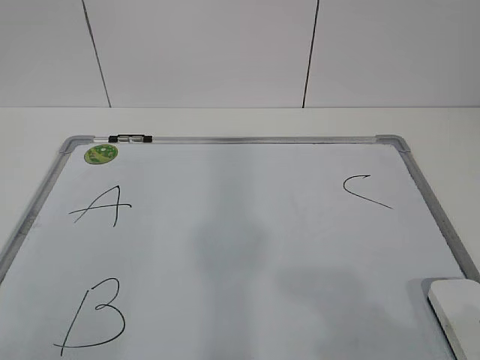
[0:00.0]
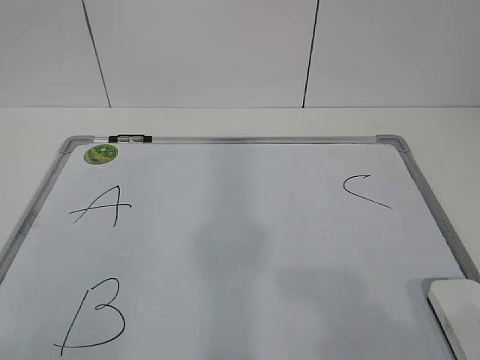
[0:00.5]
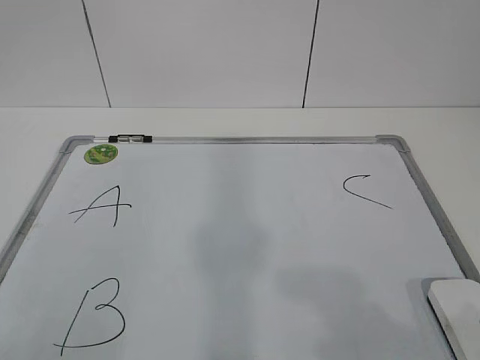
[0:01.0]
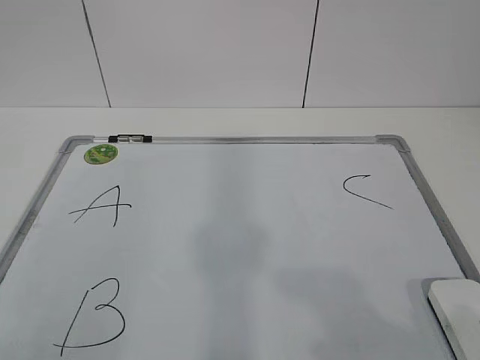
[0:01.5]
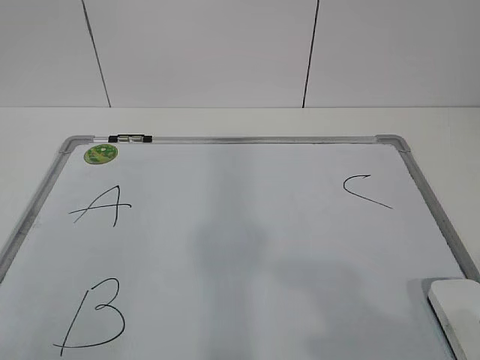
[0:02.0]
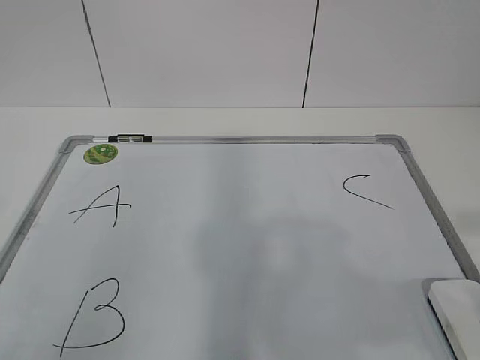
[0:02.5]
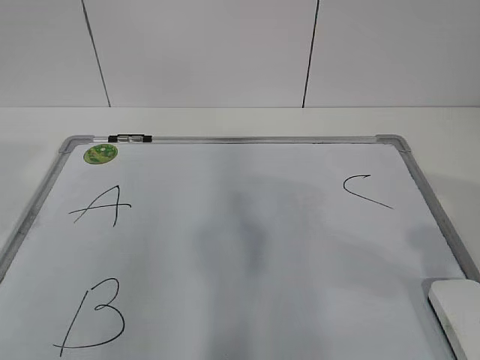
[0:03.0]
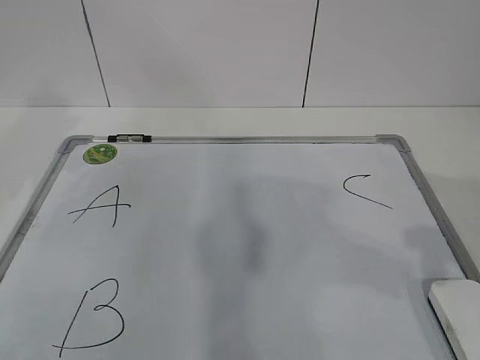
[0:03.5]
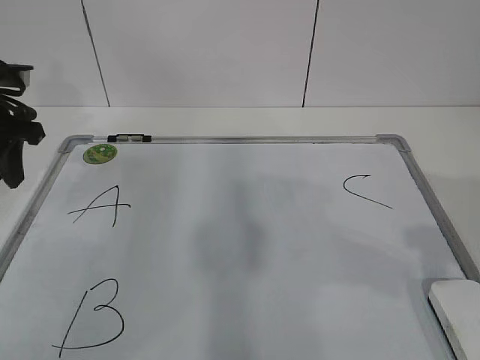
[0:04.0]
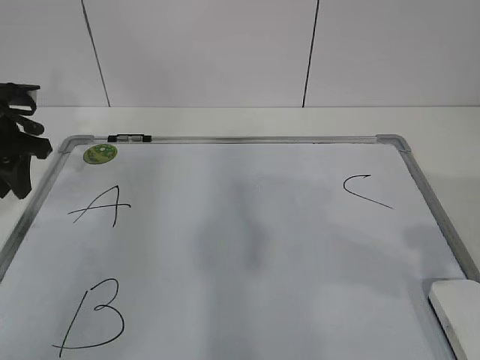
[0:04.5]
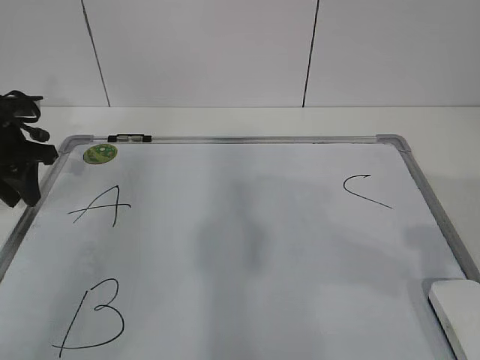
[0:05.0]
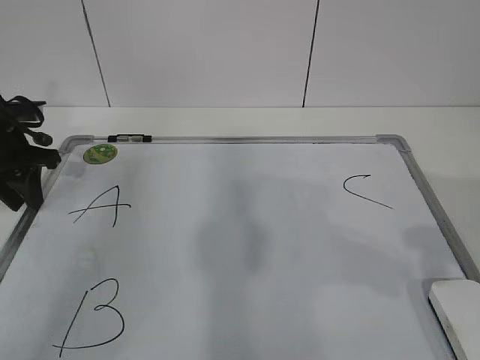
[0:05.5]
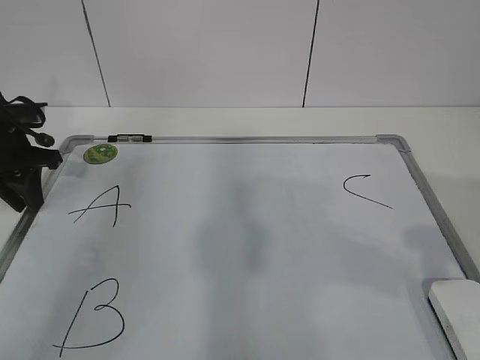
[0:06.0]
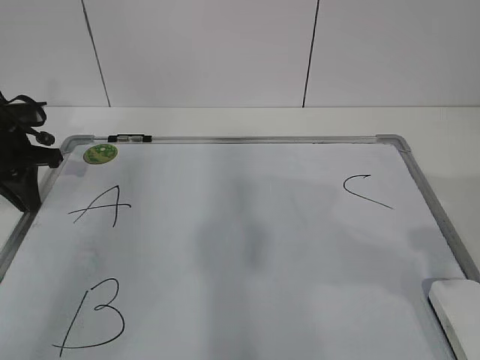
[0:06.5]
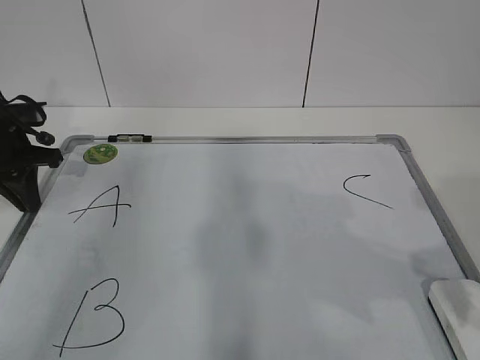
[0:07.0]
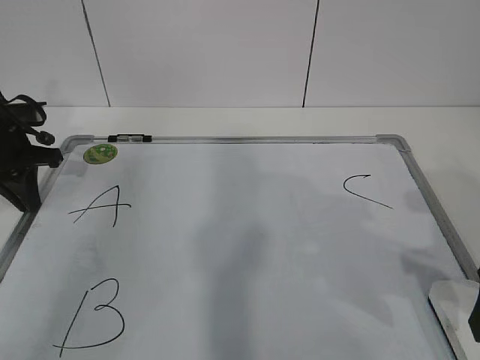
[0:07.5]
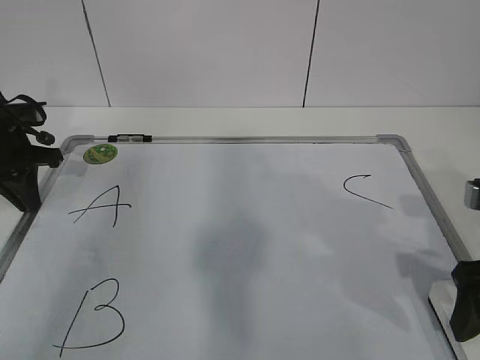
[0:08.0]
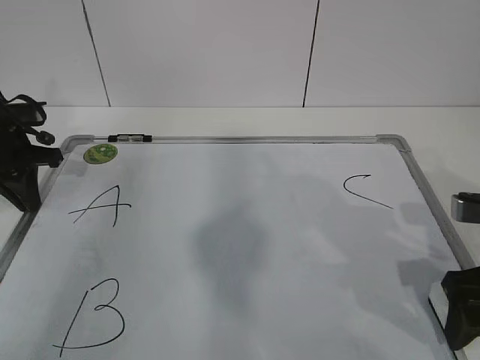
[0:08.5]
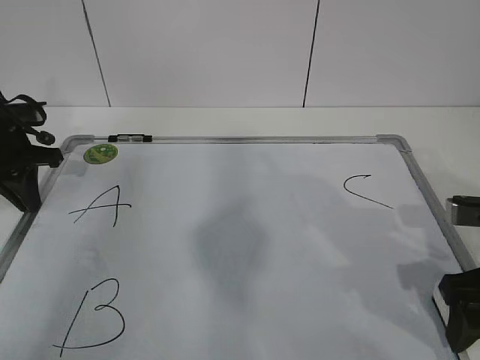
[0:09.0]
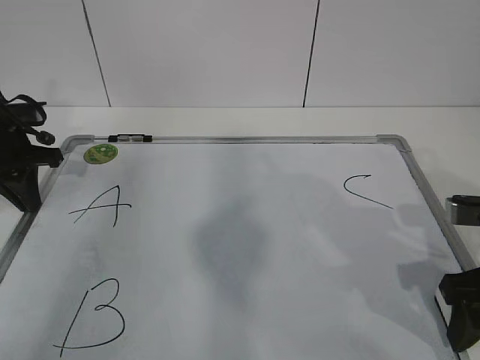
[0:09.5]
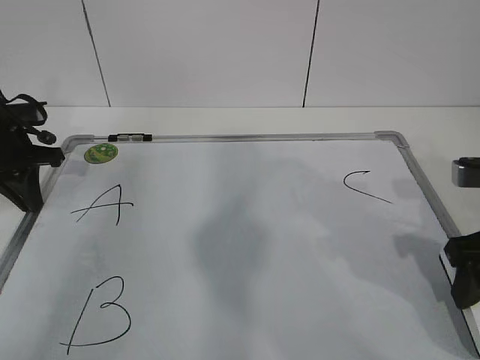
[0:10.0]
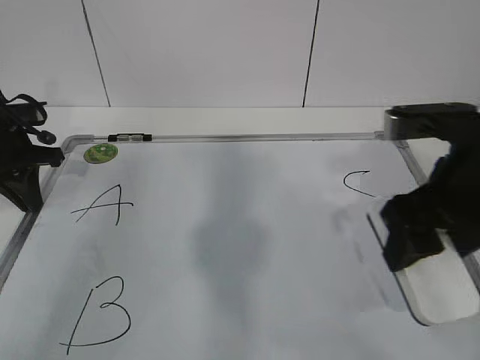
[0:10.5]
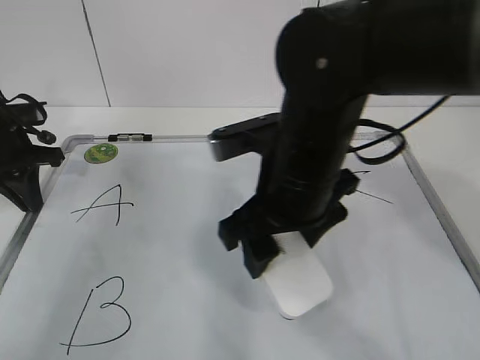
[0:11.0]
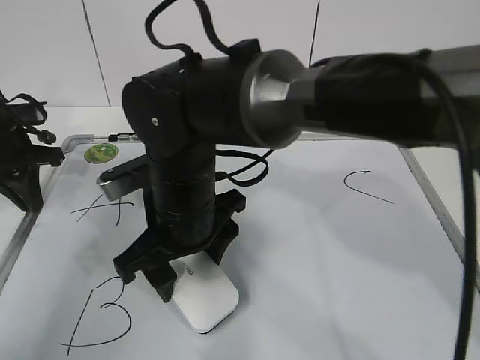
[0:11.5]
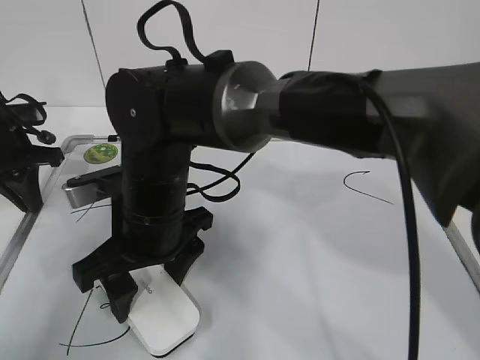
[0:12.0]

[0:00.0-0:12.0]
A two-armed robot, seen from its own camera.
Task of the whole recording: pick up the eraser on the blackboard and erase the letter "B".
Step, 0:00.0 to 0:05.0: Hold the drawing board steady with your left hand.
0:02.0 to 0:04.0: The left gripper goes approximately 40 cm forward. Meanwhile the right gripper moves forward, approximately 15 cm.
0:04.0 to 0:06.0: The left gripper travels downward by approximately 5 cm.
0:06.0 to 0:08.0: The right gripper is displaced downward and forward by approximately 10 cm, and opens its fingers.
0:08.0 to 0:10.0: The right gripper closes.
0:10.0 to 0:12.0: The right gripper travels to the left by approximately 35 cm.

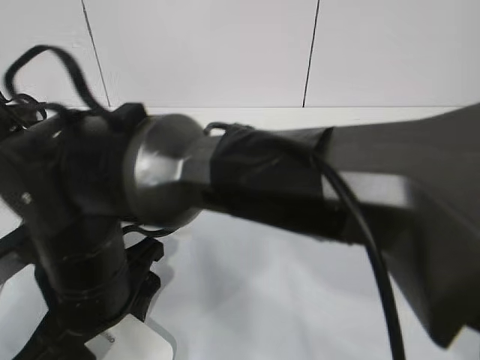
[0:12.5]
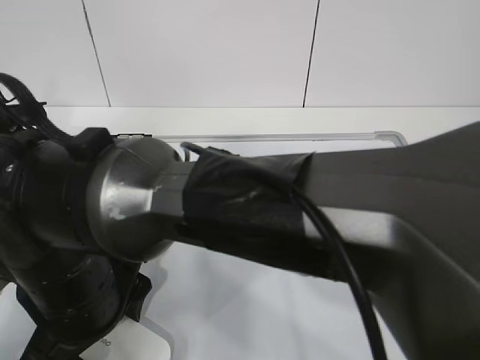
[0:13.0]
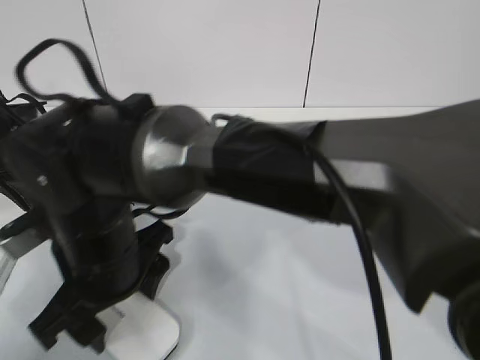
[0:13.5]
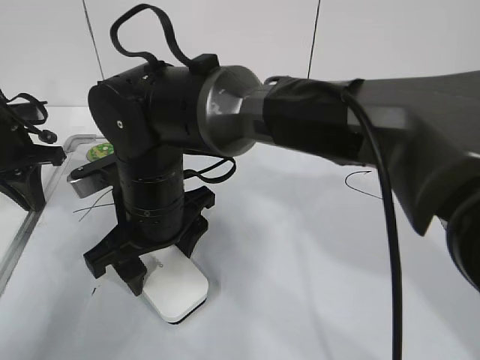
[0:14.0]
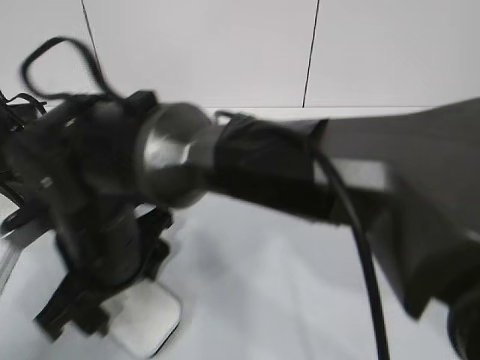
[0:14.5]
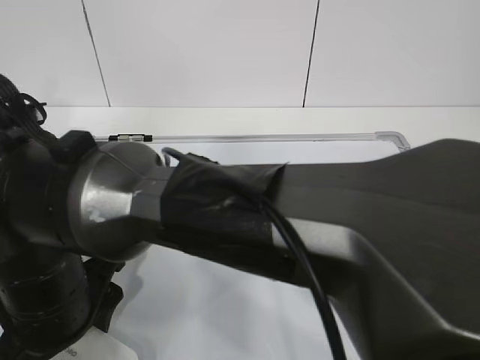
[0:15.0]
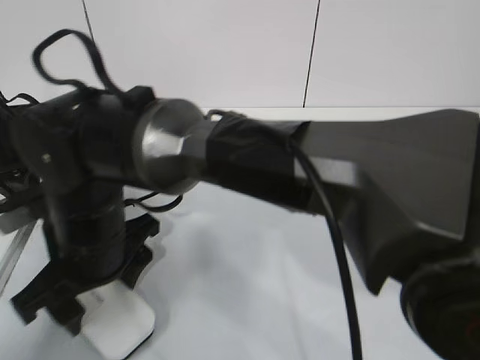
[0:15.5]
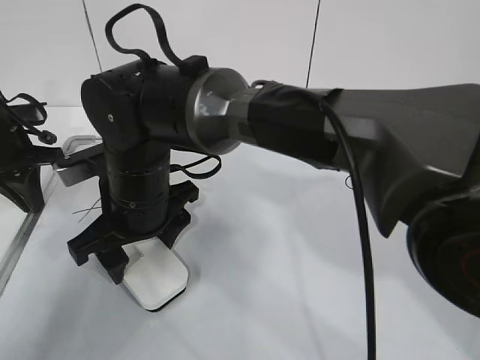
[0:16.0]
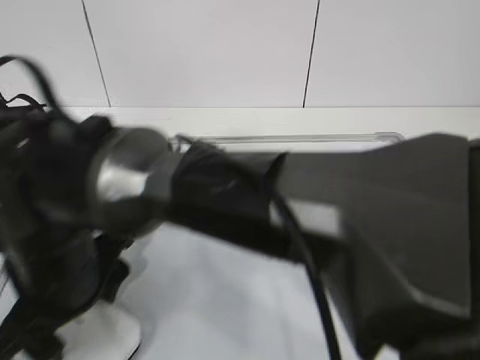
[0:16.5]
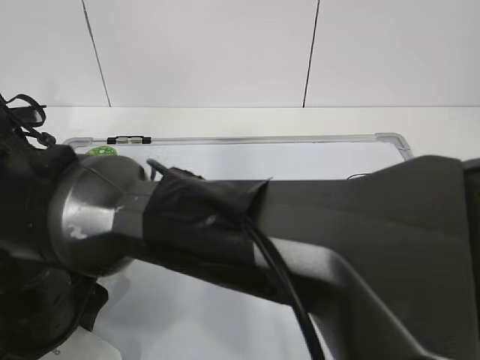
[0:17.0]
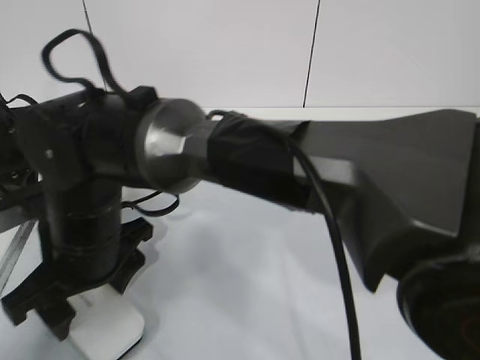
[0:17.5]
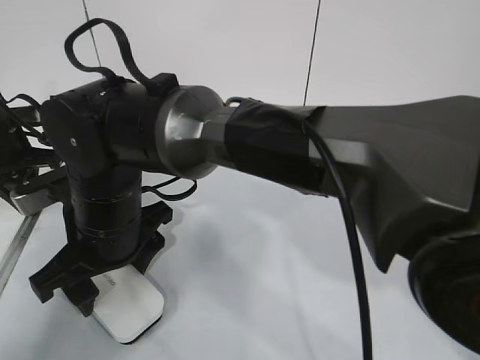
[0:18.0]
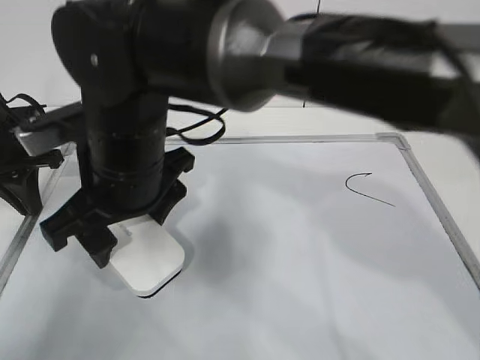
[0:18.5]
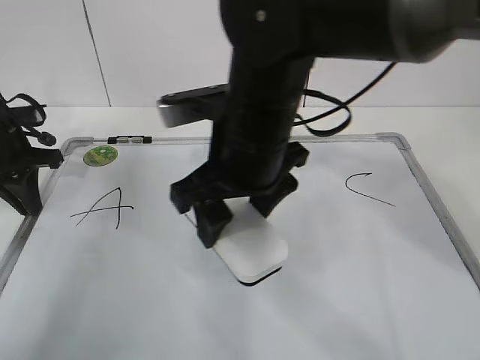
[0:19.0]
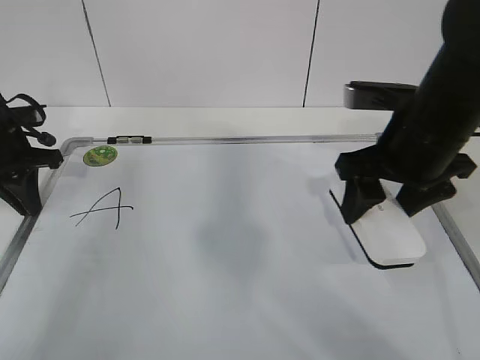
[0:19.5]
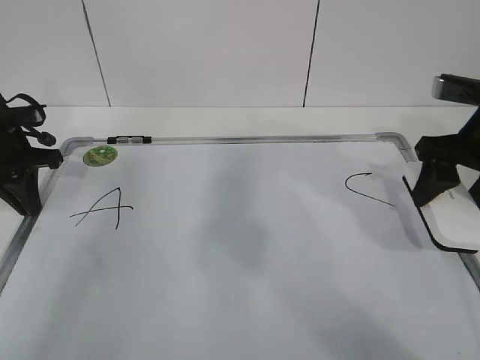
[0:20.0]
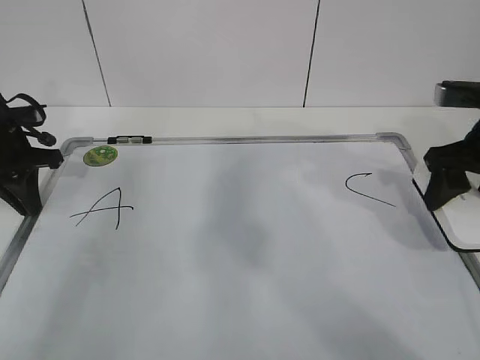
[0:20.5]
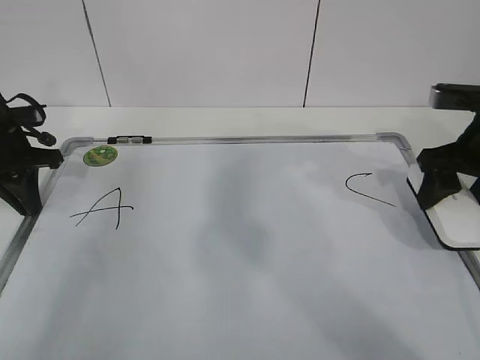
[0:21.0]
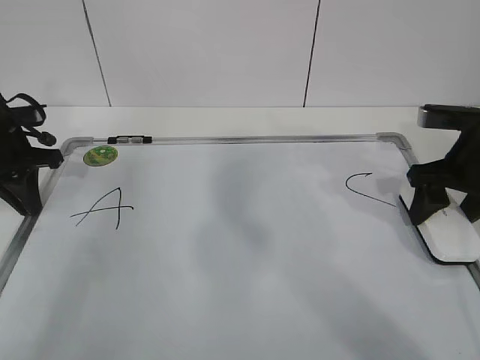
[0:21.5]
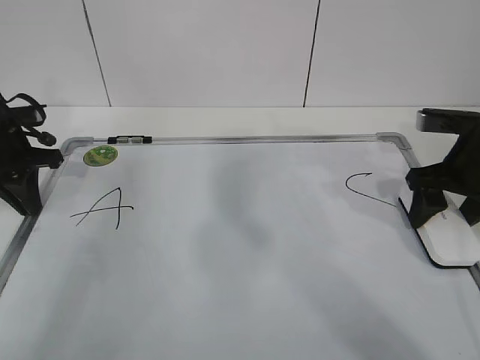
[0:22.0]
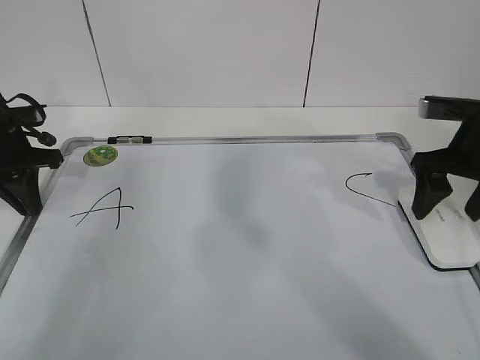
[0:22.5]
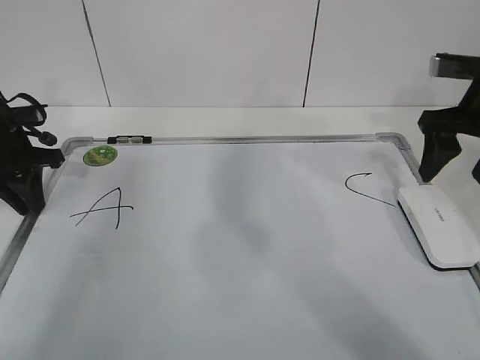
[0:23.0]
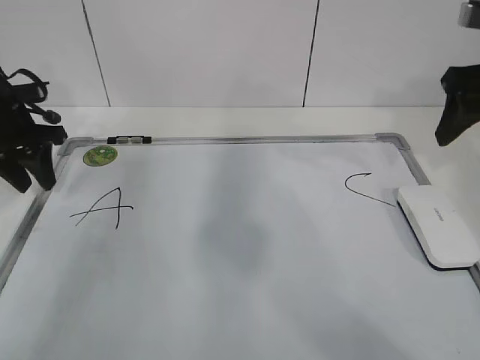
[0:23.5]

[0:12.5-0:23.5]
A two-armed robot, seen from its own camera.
Task of the whole recording: pick up the eraser on the blackboard and erase the letter "B".
Step, 0:12.5 to 0:15.0: Erase the letter B with your right hand.
Step, 0:15.5 to 0:18.0: Put down the eraser with your right hand.
0:12.5 to 0:14.5: The right gripper moves about 10 cm forward and comes back.
0:14.5 to 0:16.0: The right gripper travels forward by roughly 5 cm.
0:16.0 to 0:18.0: The right gripper moves roughly 10 cm backward and comes back.
0:18.0 to 0:20.0: The right gripper shifts some 40 cm to the right.
0:20.0 to 0:21.5: The right gripper ends up roughly 5 cm from where it was.
0:21.5 to 0:23.5: The left gripper opens up. The right gripper travels upward by about 10 cm, and opens its fingers.

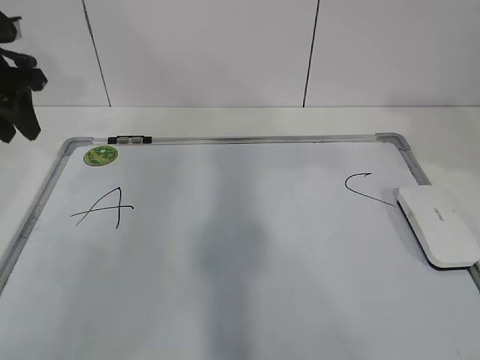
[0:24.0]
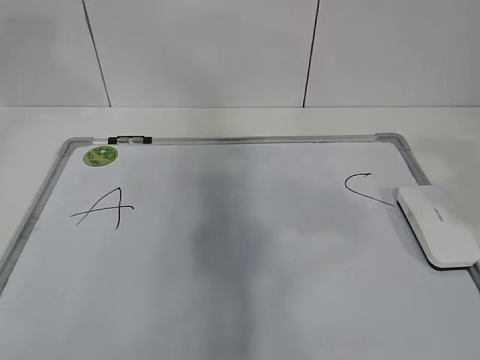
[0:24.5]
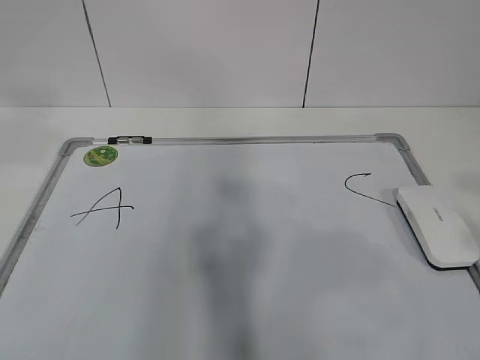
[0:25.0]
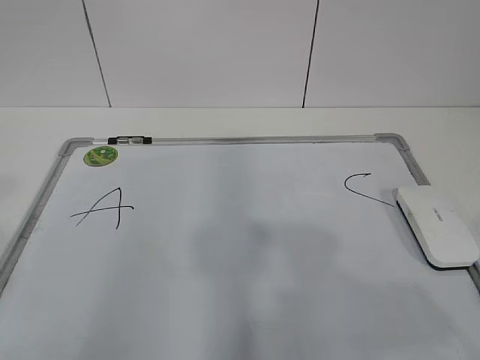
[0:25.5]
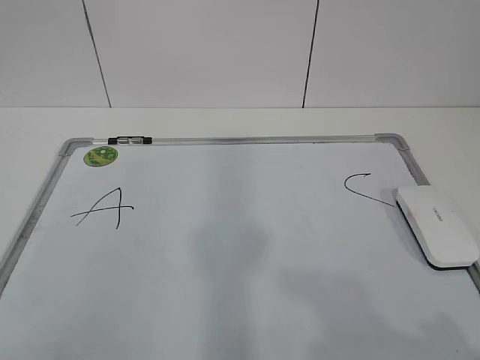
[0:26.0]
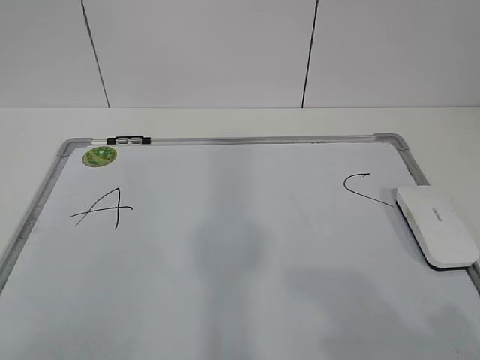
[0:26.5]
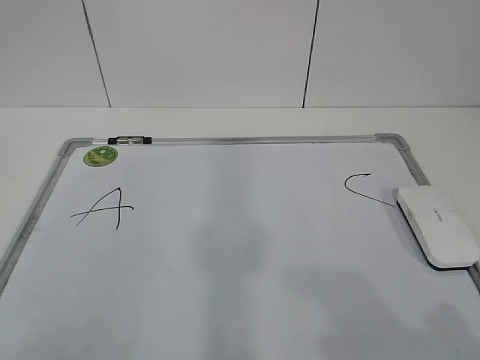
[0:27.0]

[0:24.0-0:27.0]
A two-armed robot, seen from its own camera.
Task of the whole recording: pick up the eraser on the blackboard and erase the letter "B".
0:24.0 to 0:25.5: Both grippers move backward, roughly 30 cm.
0:25.5 to 0:27.0: The left gripper heads downward and backward, covering about 10 cm; the right gripper goes about 5 cm downward.
